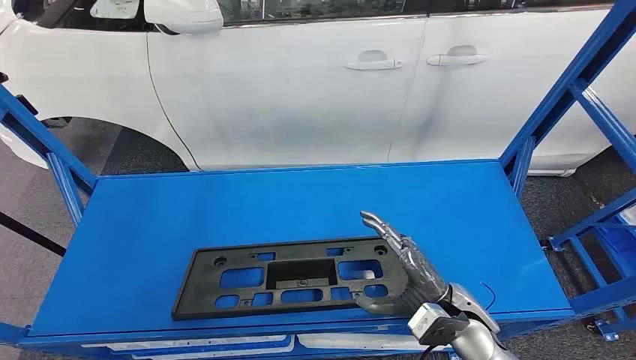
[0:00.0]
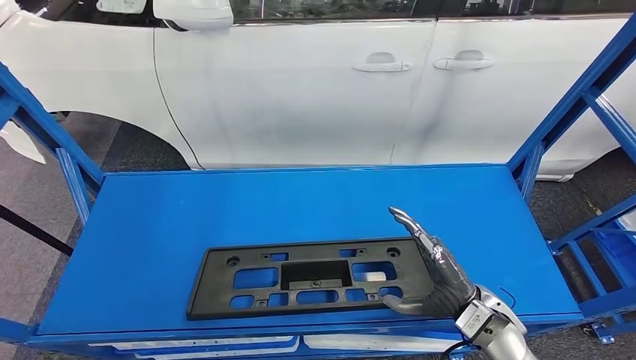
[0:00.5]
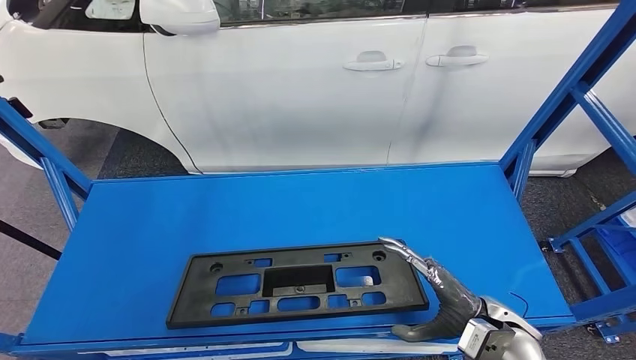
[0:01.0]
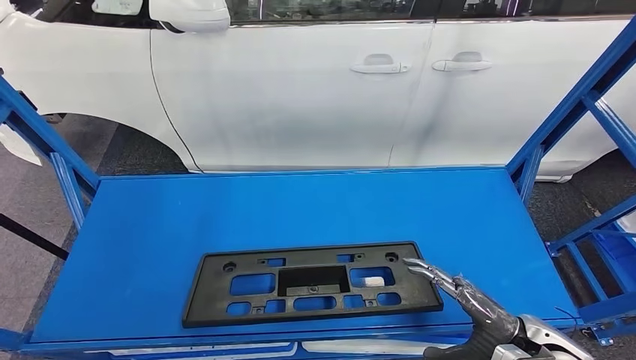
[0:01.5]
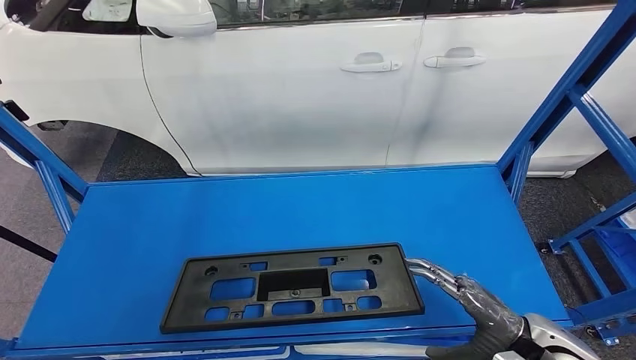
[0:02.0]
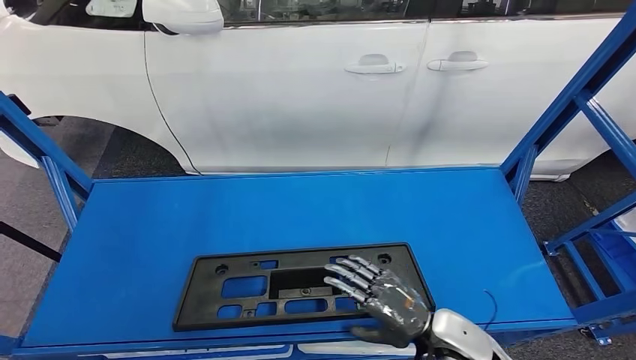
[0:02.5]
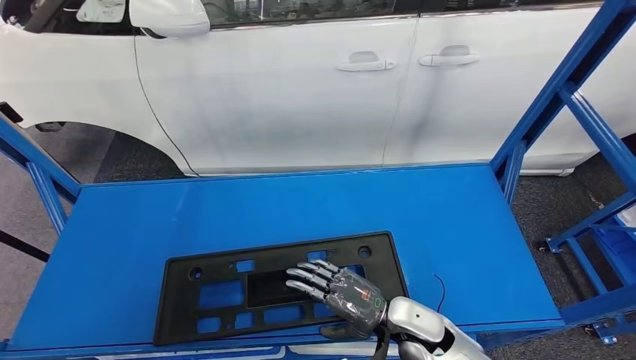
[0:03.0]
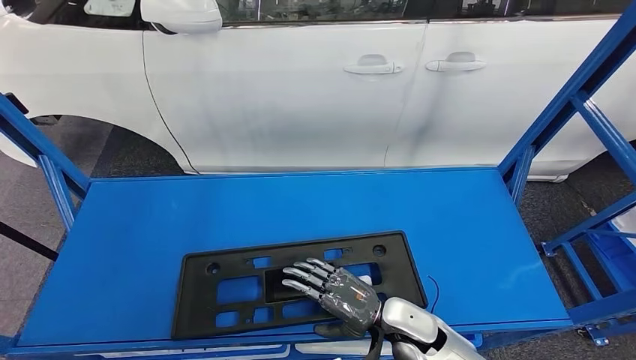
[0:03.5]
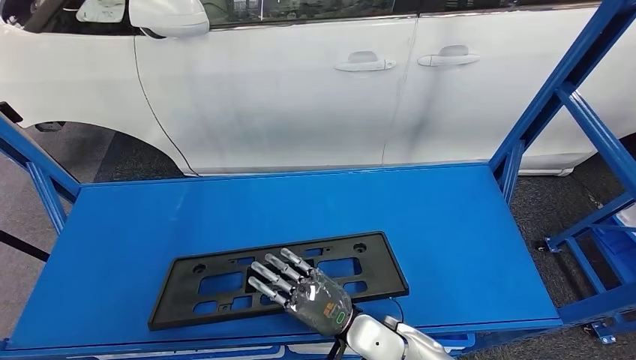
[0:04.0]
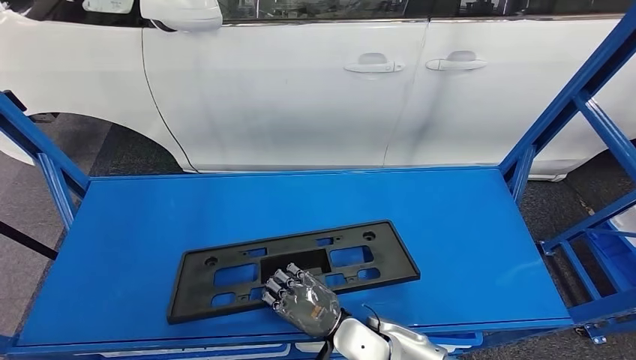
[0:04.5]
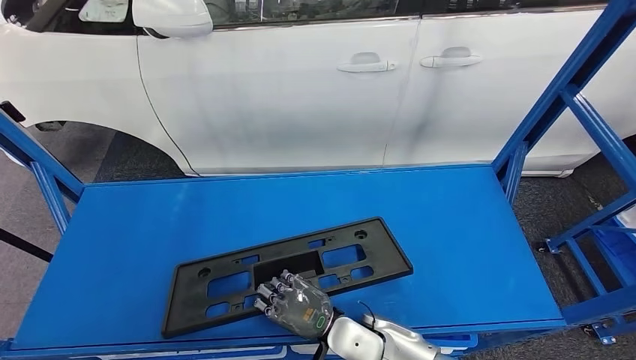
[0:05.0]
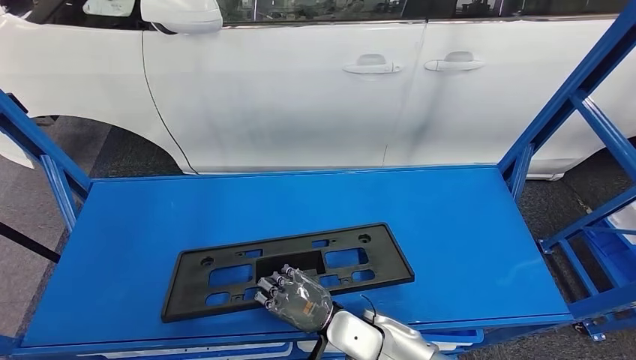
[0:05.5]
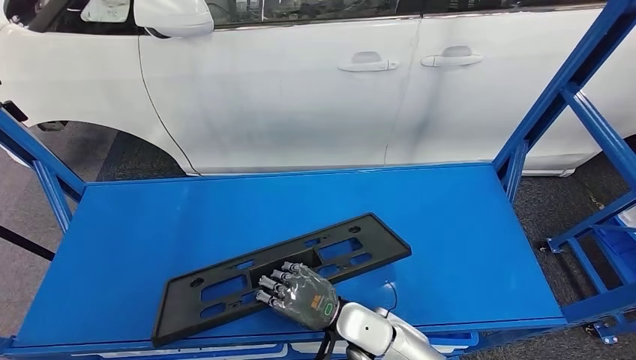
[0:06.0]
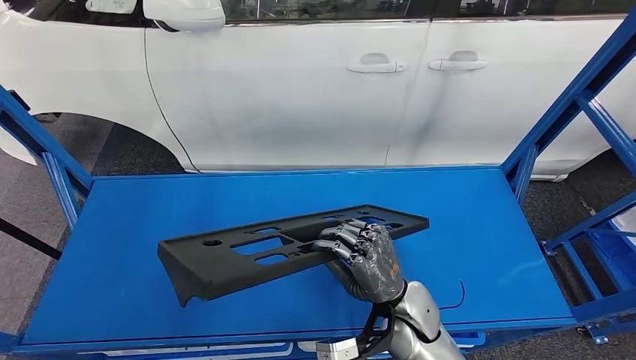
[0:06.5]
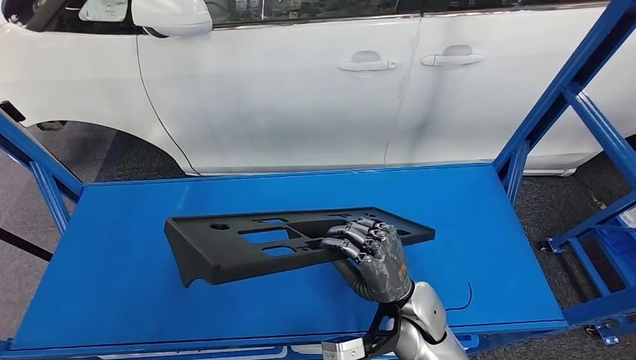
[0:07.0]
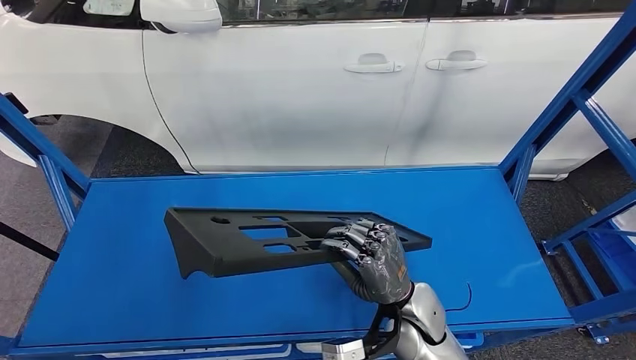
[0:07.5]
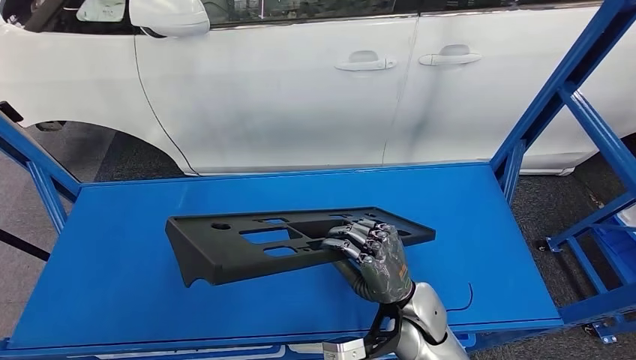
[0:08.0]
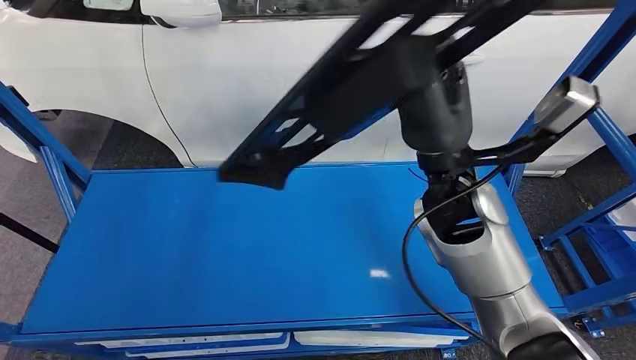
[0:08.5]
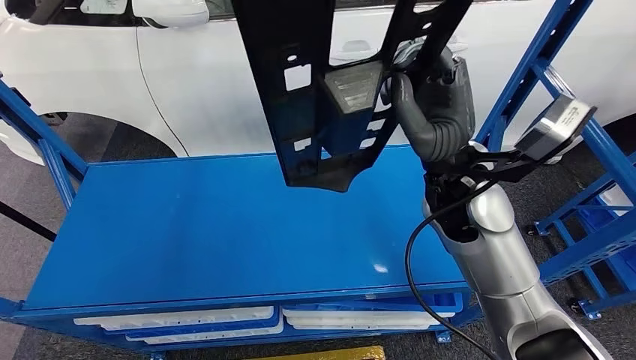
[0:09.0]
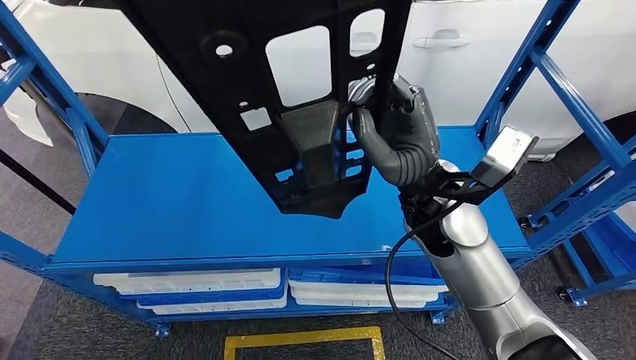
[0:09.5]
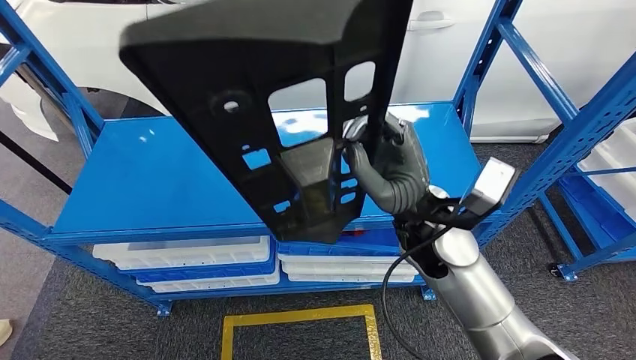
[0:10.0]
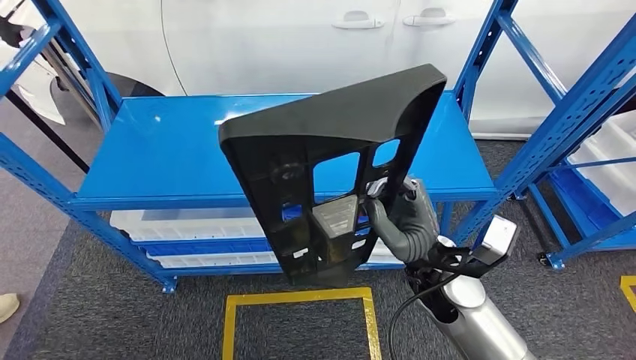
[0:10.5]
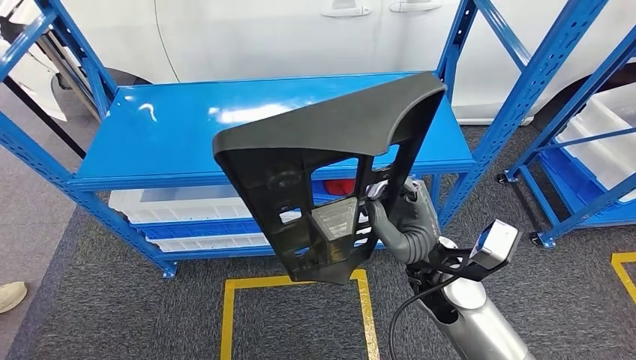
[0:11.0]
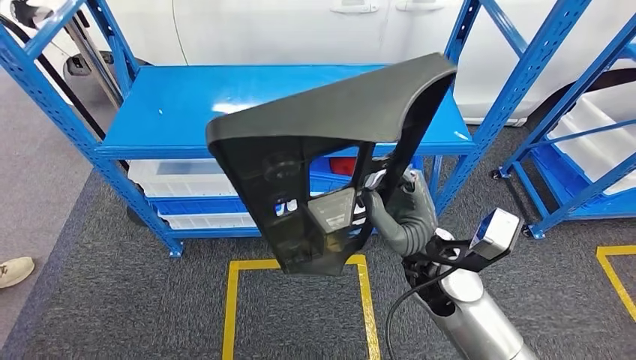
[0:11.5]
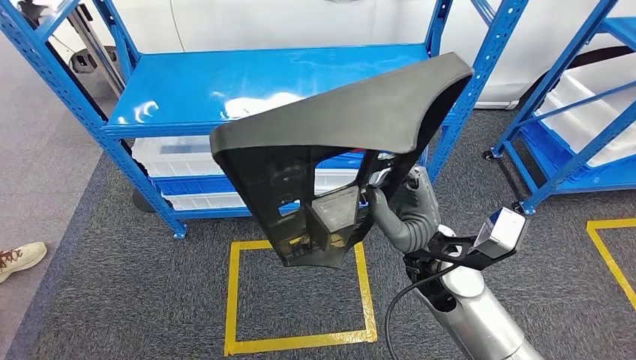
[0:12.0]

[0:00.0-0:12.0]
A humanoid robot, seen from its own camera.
Step, 0:00.0 to 0:06.5: Pick up the large material from the shelf.
0:02.0 to 0:04.0: The right hand goes about 25 cm to the left.
0:04.0 to 0:06.0: The hands make only small movements.
0:06.0 to 0:08.0: The right hand moves to the right and upward, roughly 10 cm.

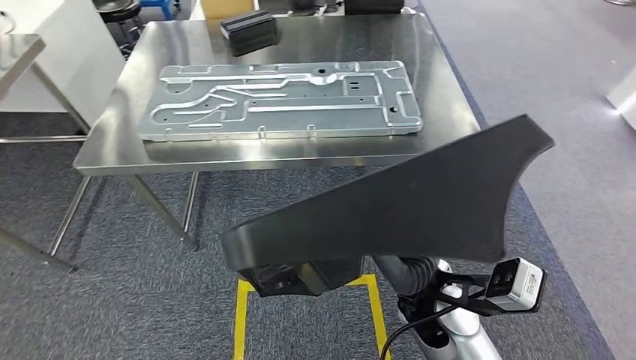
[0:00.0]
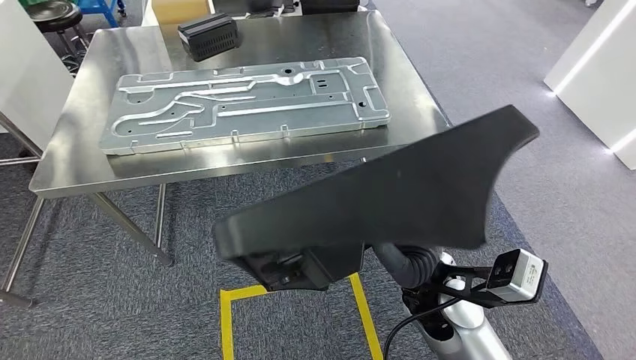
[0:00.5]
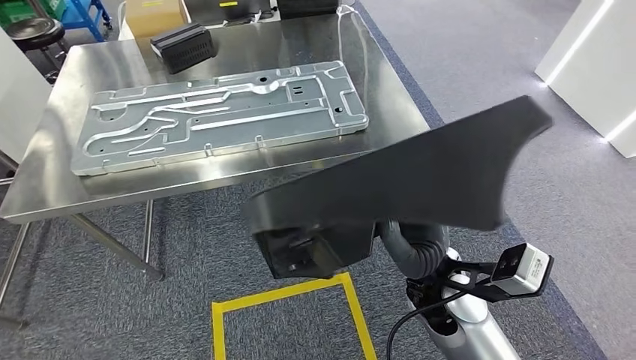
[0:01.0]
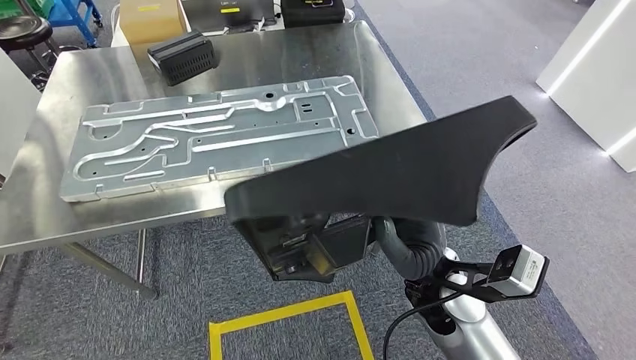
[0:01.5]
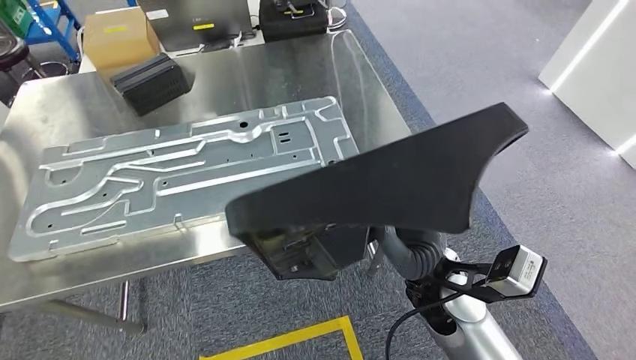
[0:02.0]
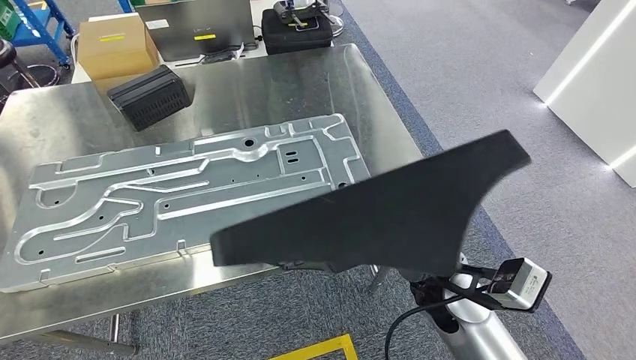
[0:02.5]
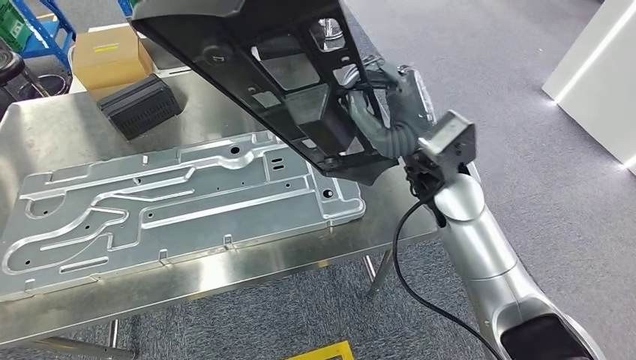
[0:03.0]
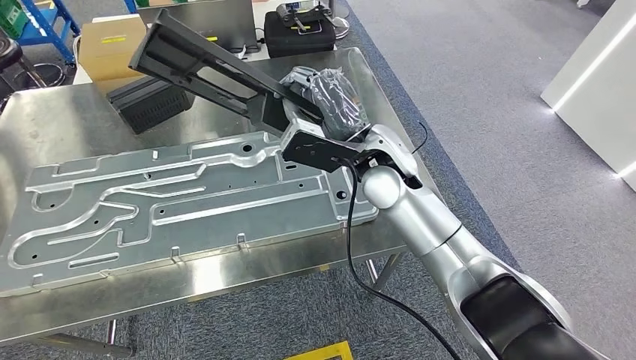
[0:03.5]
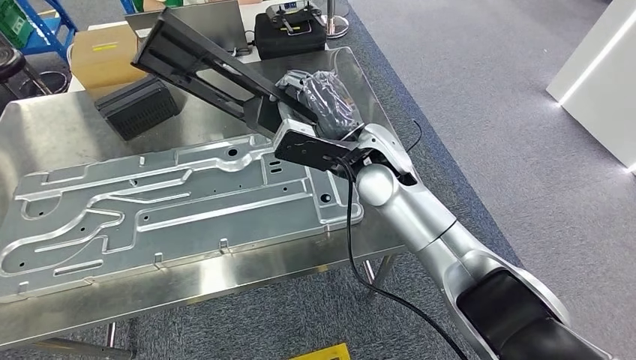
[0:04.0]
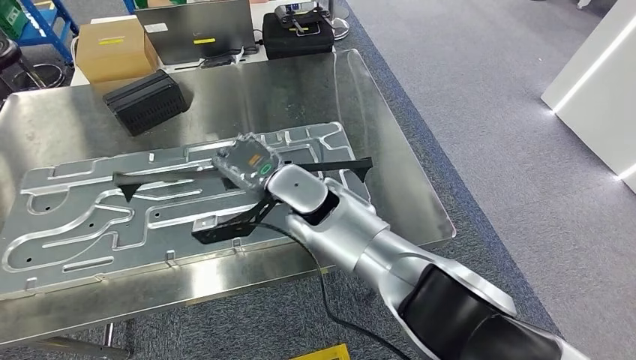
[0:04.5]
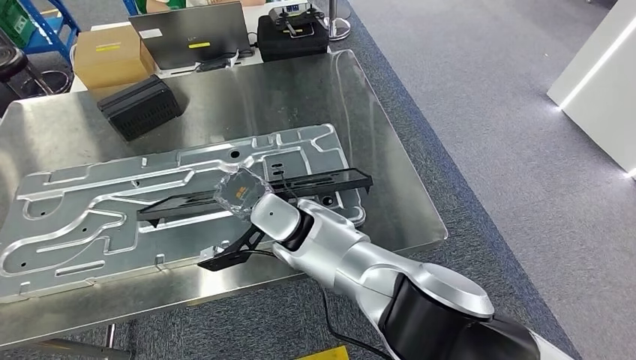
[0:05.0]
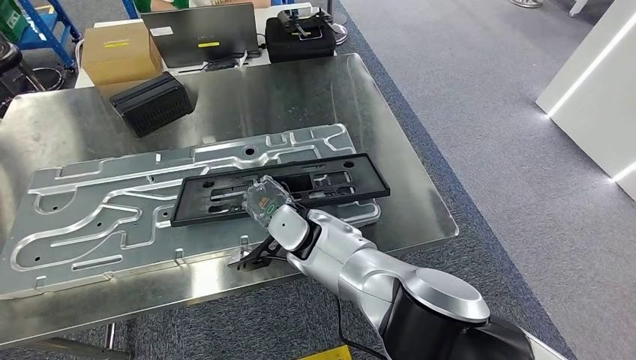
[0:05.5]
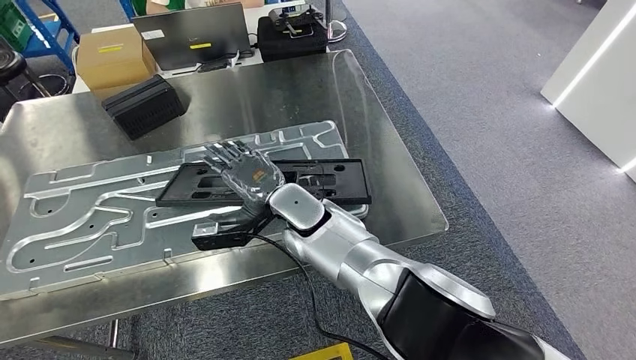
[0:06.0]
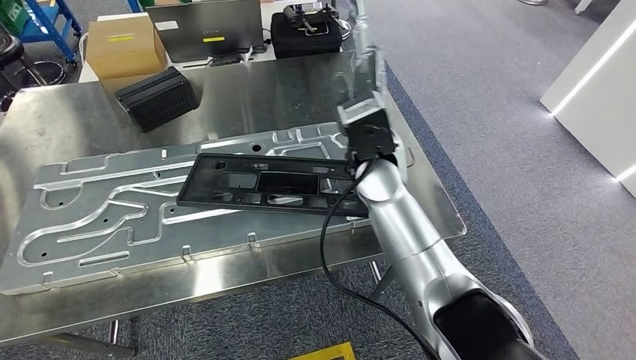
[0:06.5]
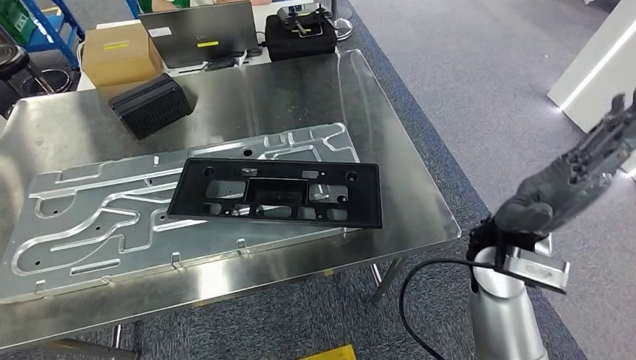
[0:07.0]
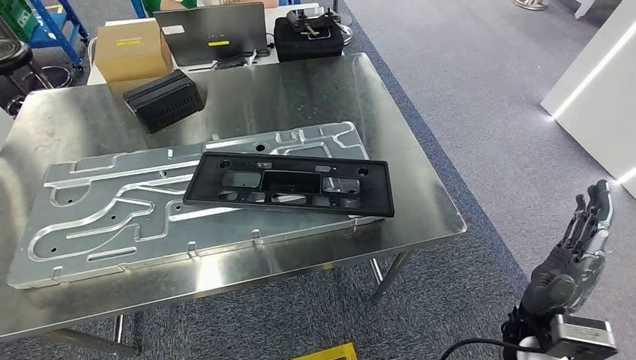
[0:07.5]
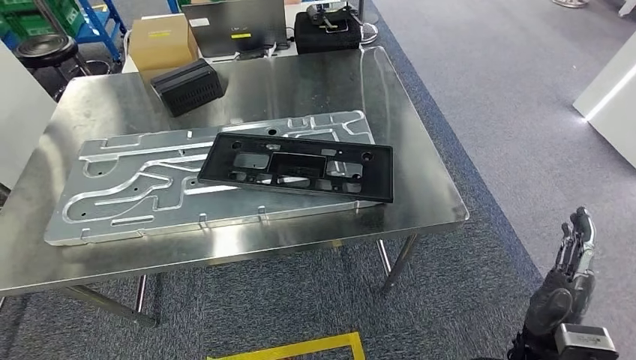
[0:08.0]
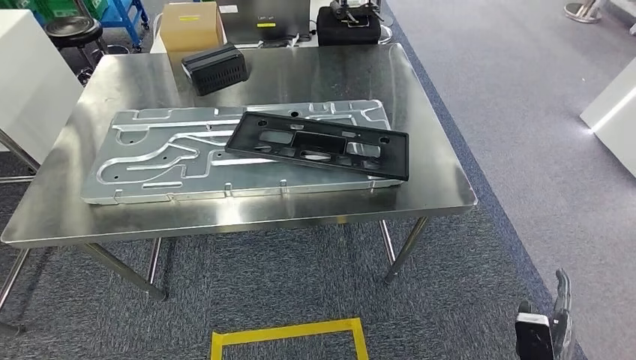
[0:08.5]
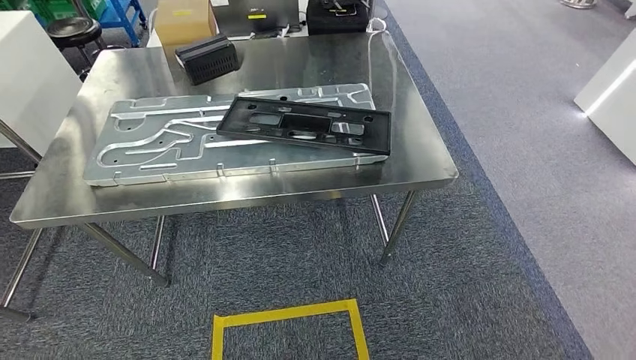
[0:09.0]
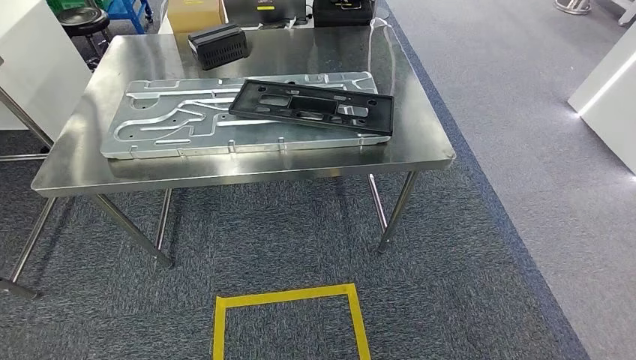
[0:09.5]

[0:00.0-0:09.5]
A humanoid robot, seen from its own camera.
Step, 0:00.0 to 0:03.0: Move the large material to the workbench.
Step, 0:03.5 to 0:08.0: Insert the large material into the corresponding slot on the workbench.
